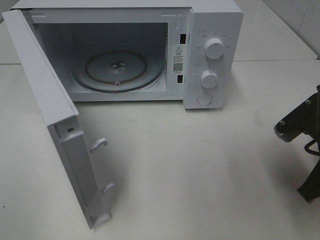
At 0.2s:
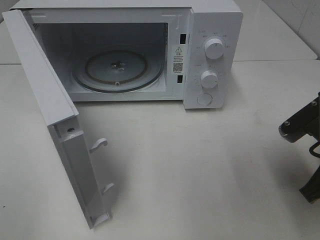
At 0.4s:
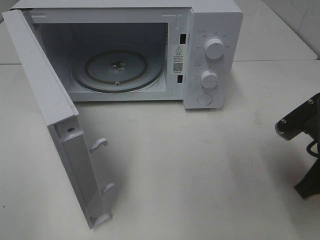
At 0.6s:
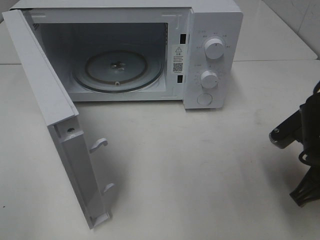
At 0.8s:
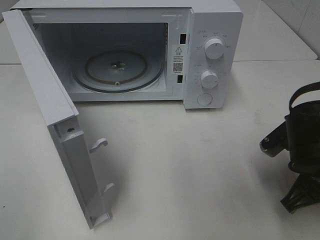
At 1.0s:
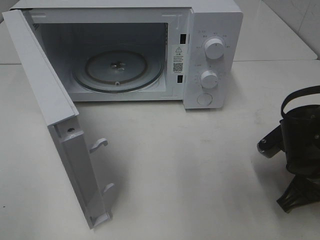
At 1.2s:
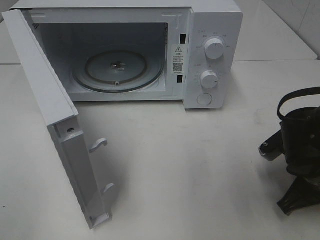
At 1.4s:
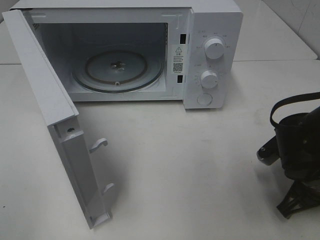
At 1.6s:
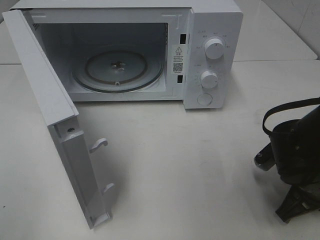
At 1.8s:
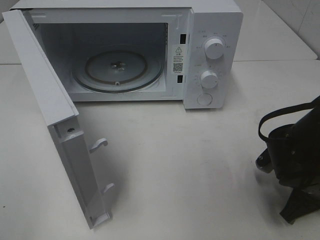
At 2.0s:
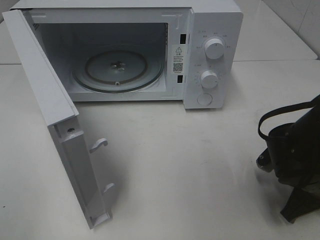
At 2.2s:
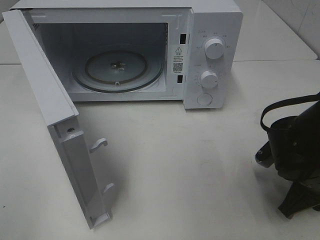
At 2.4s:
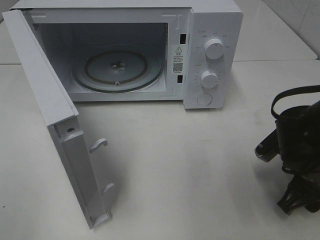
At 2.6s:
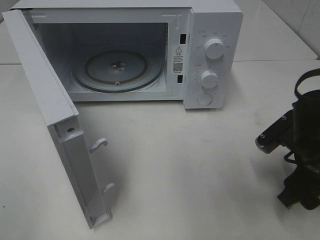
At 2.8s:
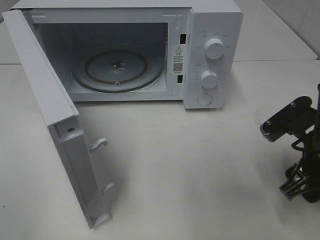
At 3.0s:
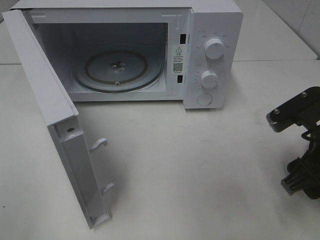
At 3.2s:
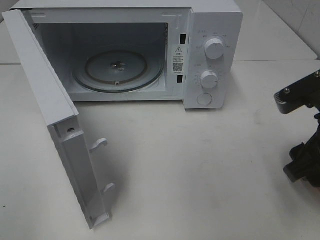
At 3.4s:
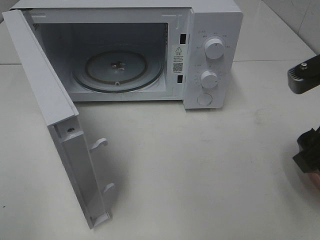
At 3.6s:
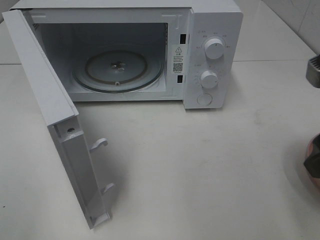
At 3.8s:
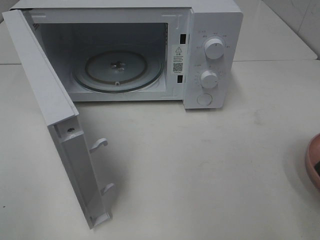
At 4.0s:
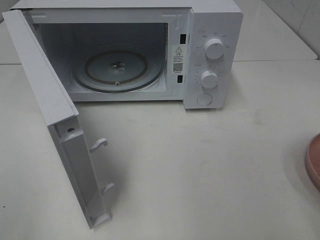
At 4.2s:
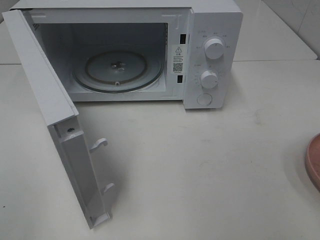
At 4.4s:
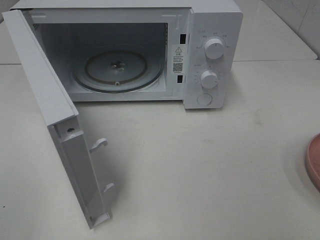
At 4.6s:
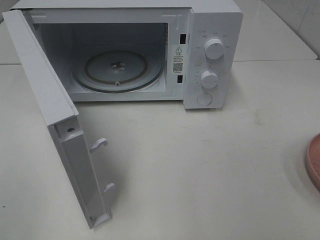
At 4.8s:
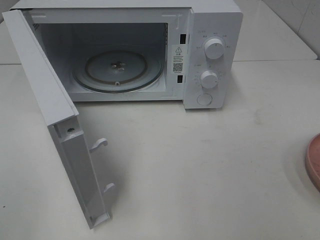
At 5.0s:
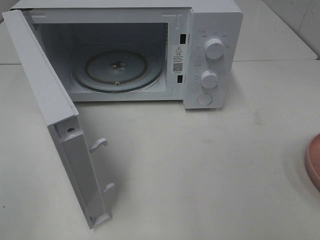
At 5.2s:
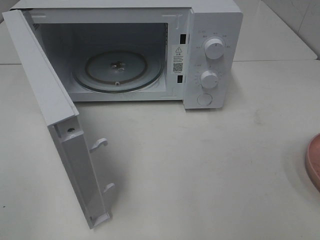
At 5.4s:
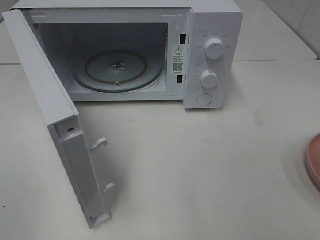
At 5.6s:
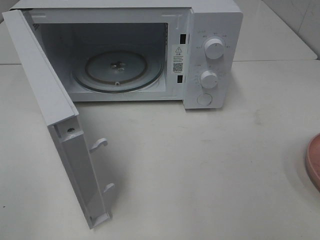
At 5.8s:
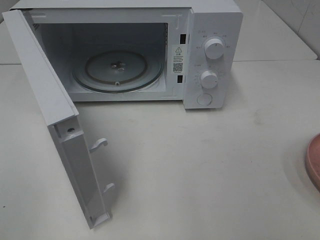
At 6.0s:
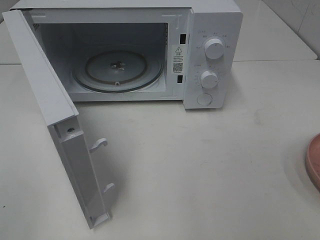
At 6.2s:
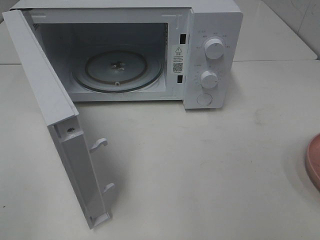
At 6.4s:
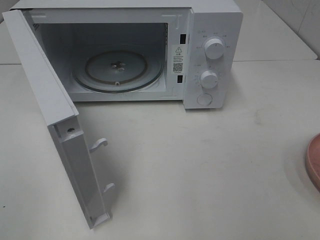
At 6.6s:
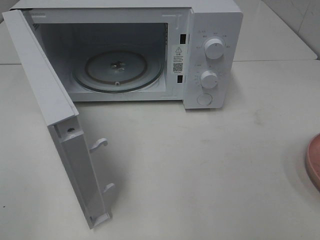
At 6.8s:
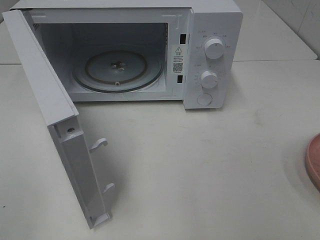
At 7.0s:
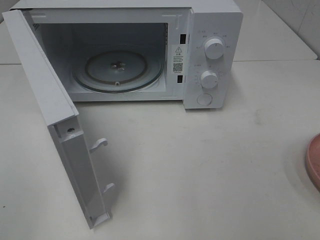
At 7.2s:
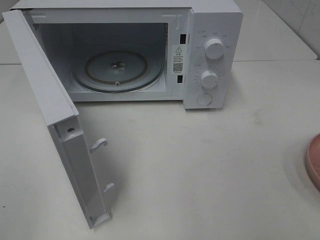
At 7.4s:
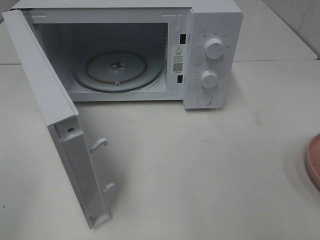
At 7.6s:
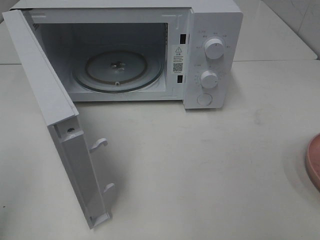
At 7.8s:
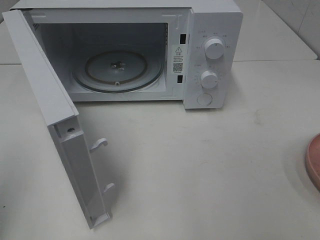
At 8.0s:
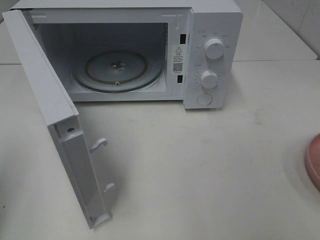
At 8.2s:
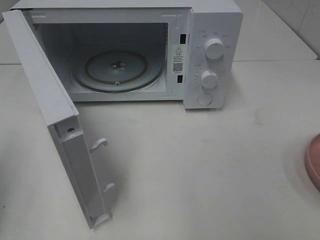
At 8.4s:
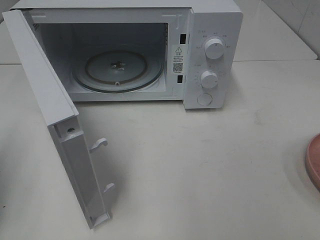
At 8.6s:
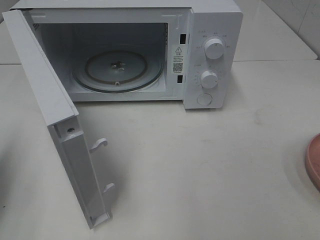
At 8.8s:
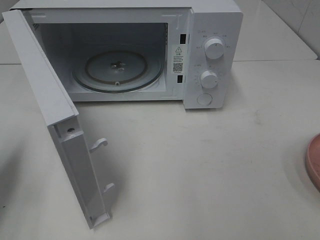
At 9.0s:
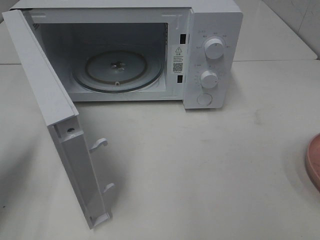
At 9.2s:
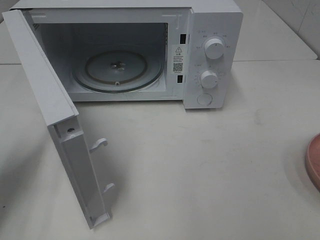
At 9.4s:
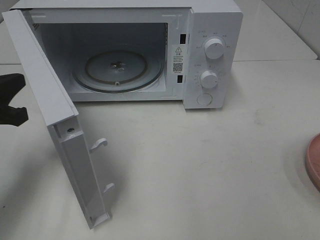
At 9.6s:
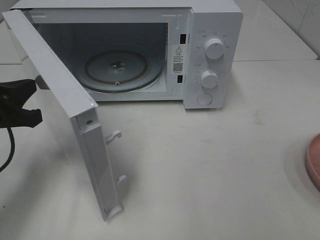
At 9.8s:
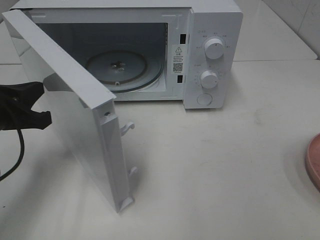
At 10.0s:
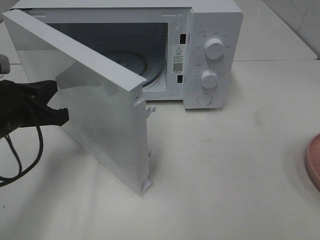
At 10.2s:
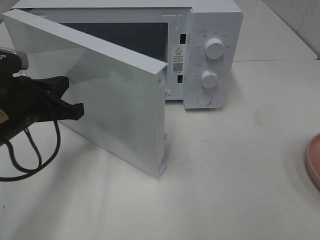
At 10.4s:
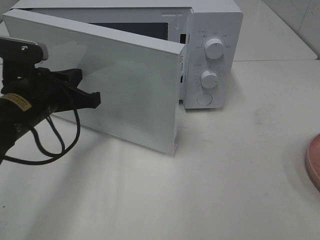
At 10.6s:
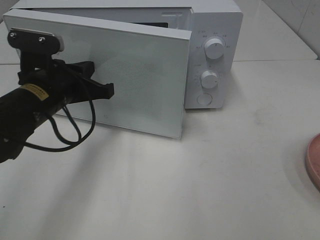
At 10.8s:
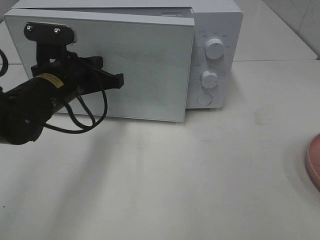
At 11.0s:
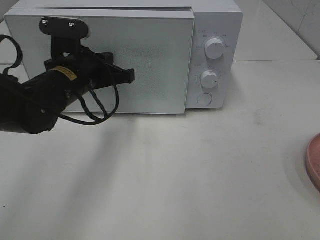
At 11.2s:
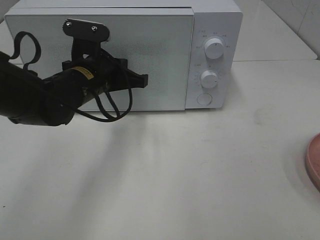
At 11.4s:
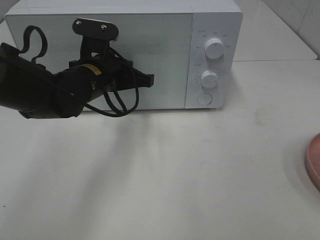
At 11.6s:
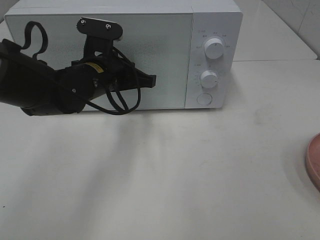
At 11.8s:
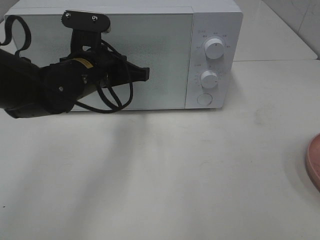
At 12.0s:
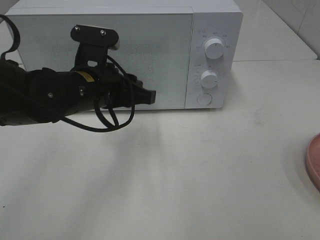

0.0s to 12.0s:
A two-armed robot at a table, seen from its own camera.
Task of the whole recording: Heat the burger.
Step, 0.0s to 2.4s: Right hand: place the plate on the table.
Step, 2.6s to 12.0s: Left hand: close the microwave door.
0.0s to 1.6s: The right gripper moves downward, approximately 10 cm.
1.6s to 3.0s: The right gripper moves upward, approximately 10 cm, and opens its fingers.
3.0s to 4.4s: The right gripper is displaced backward, upward and to the right by approximately 20 cm.
7.6s to 9.0s: The left gripper shifts about 20 cm forward and downward.
9.0s to 10.4s: The left gripper goes approximately 15 cm to the right and forward.
10.4s to 12.0s: The left gripper moves to the right, approximately 10 cm, and opens.

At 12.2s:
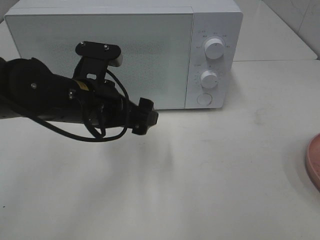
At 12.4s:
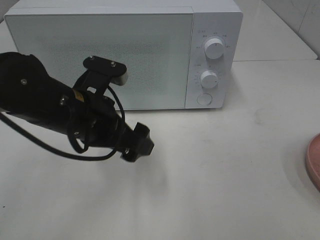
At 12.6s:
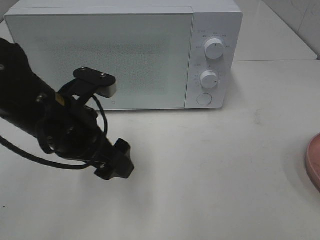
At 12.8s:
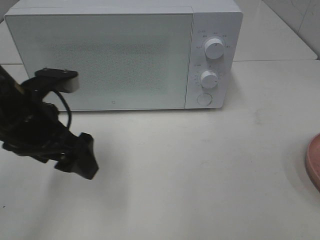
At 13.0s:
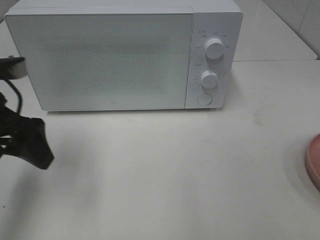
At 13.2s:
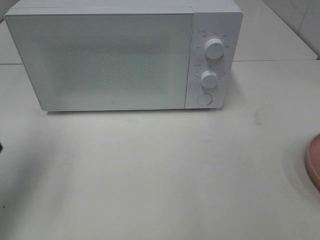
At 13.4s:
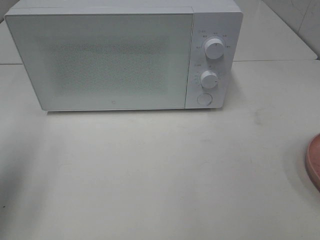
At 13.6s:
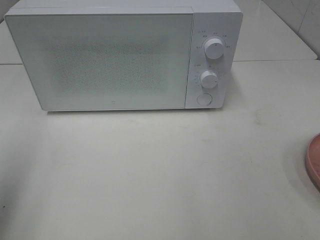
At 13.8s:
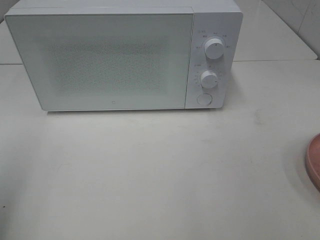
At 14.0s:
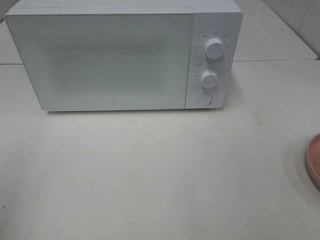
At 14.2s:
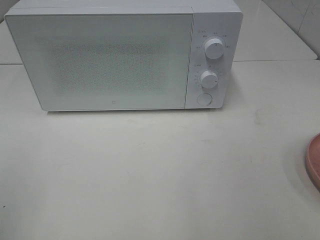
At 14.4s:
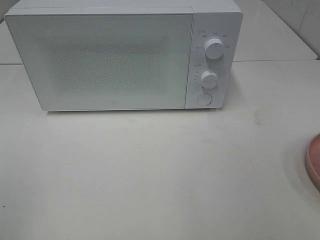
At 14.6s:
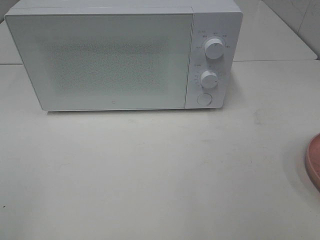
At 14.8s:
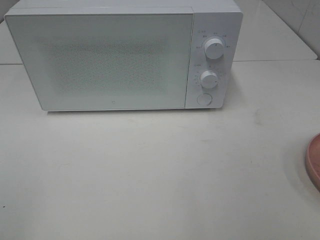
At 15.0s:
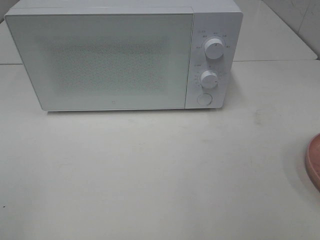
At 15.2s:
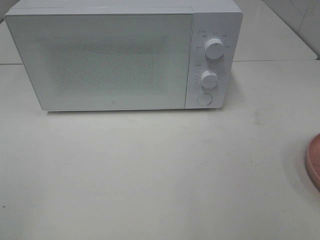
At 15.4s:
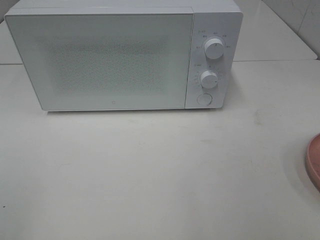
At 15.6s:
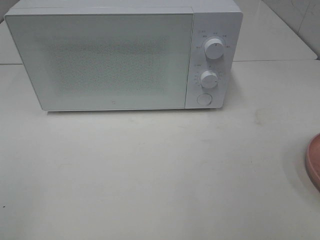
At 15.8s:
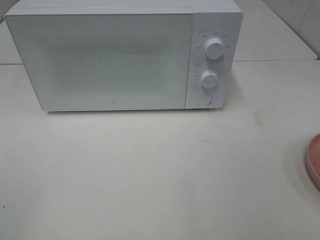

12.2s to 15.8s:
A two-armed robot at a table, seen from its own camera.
Task of the whole recording: Heat the burger.
12.2s to 14.0s: The left gripper is displaced to the left, backward and upward by approximately 30 cm.

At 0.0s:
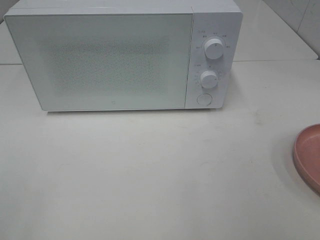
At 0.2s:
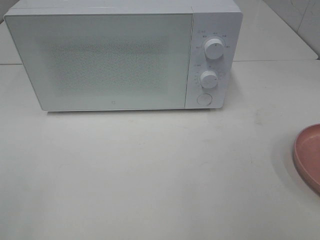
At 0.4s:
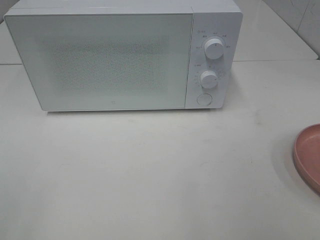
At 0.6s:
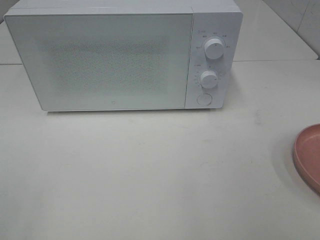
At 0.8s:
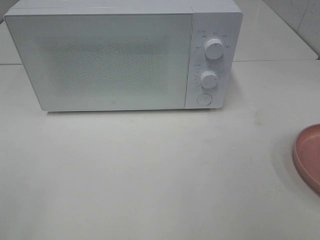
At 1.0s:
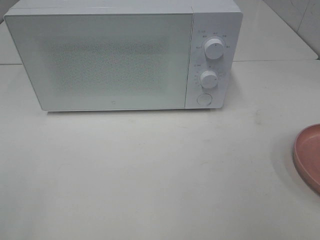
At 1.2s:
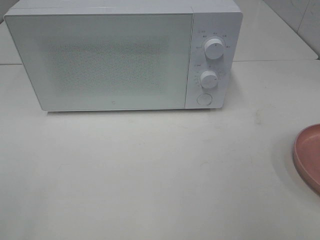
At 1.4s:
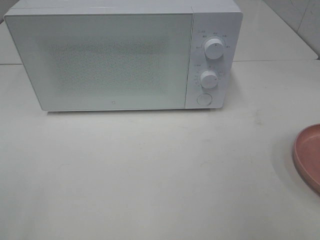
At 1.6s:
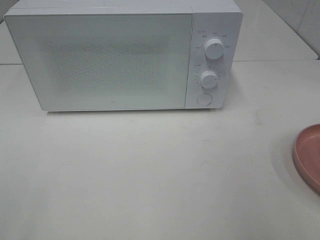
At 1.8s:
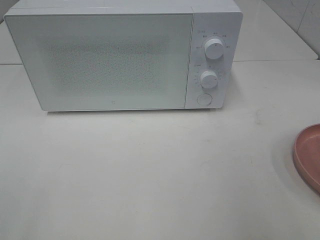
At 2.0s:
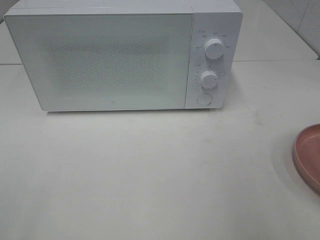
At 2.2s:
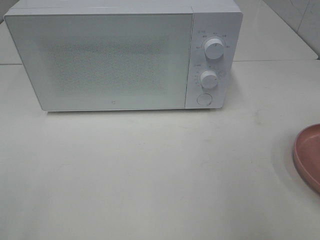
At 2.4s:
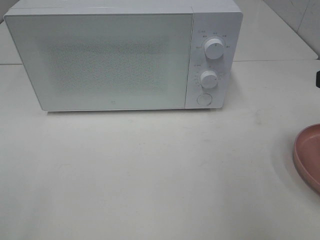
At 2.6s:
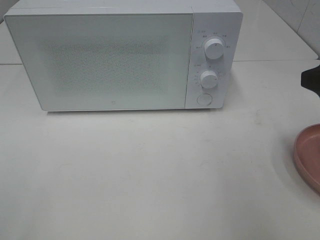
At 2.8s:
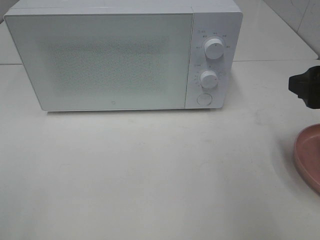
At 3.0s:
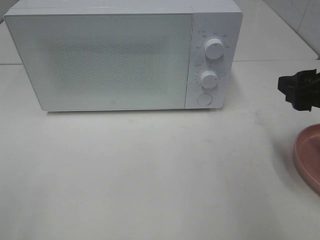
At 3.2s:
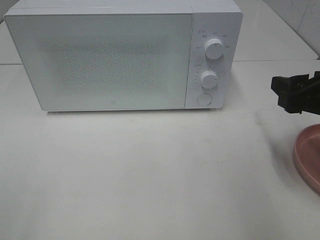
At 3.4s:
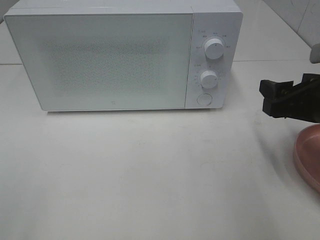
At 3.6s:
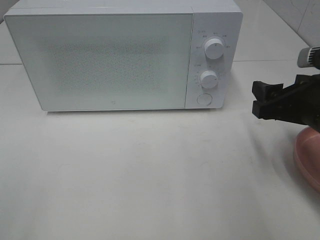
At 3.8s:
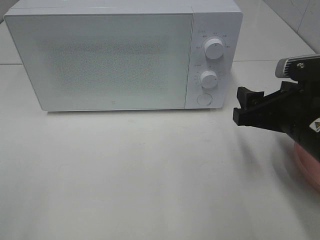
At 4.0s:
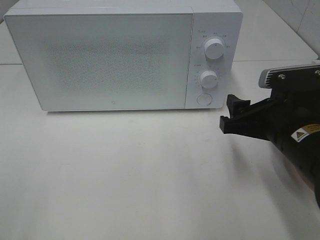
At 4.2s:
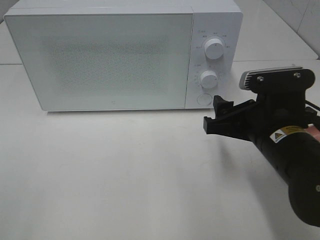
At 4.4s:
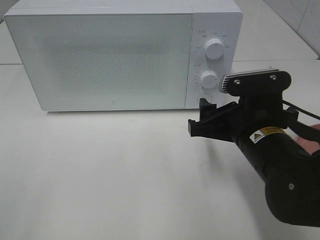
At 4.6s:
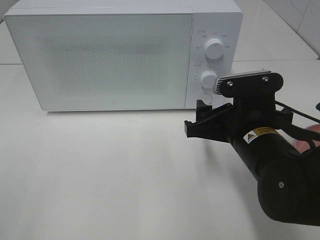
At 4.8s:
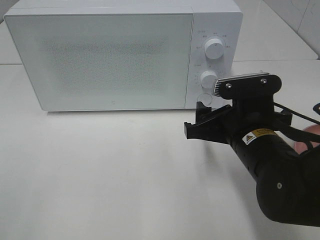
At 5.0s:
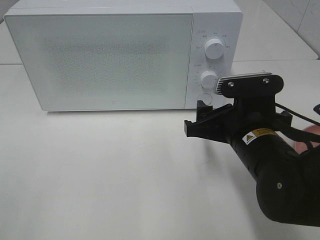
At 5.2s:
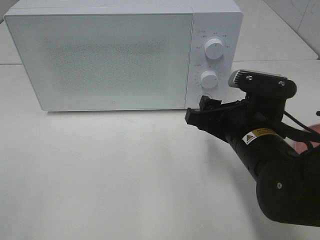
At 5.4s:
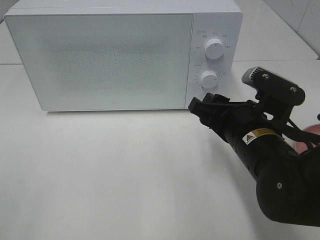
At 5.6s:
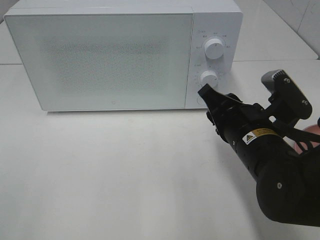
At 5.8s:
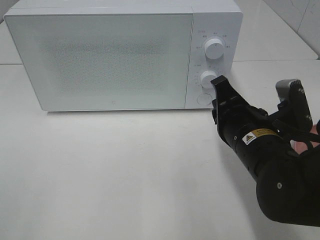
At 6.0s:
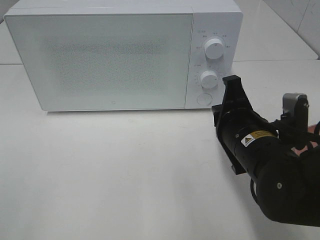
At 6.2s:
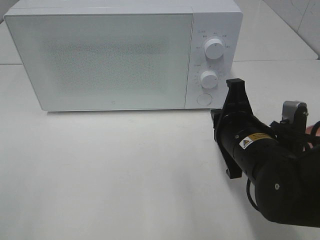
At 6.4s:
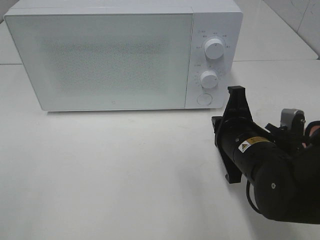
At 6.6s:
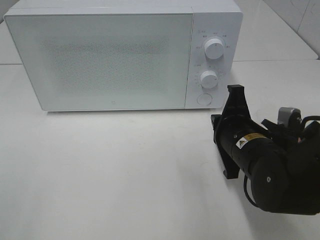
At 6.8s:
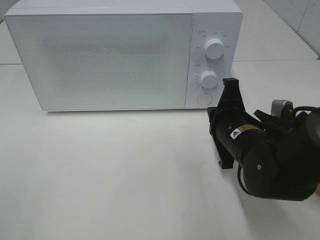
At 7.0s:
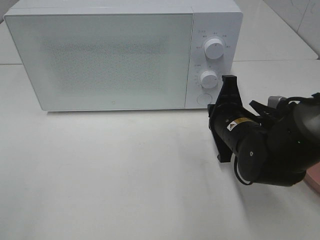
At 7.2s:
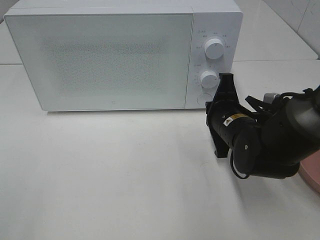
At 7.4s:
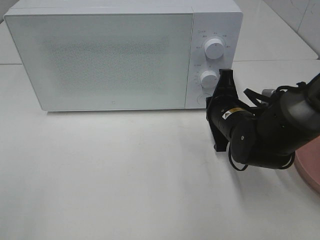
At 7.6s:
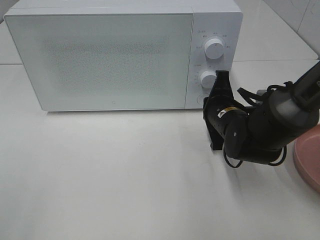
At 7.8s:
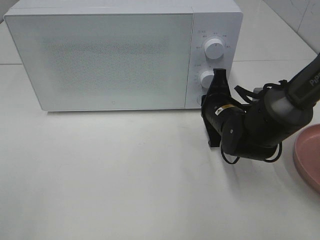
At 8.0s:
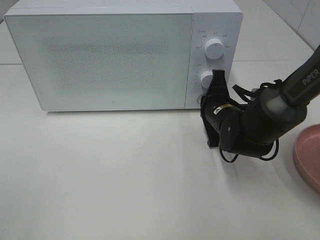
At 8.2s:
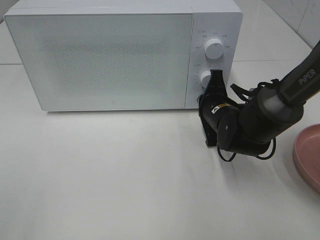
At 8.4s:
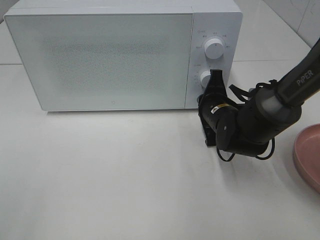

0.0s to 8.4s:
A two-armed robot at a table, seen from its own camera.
Task of the whole recording: Heat the burger.
1.4s to 2.8s: The right gripper is displaced forward and downward by approximately 15 cm.
2.8s to 4.2s: The right gripper moves to the left and downward, roughly 15 cm.
4.2s to 5.6s: The right gripper closes up.
5.6s to 7.0s: The right gripper heads forward, covering some 5 cm, and closes.
7.0s to 8.4s: The right gripper travels forward by roughly 5 cm.
